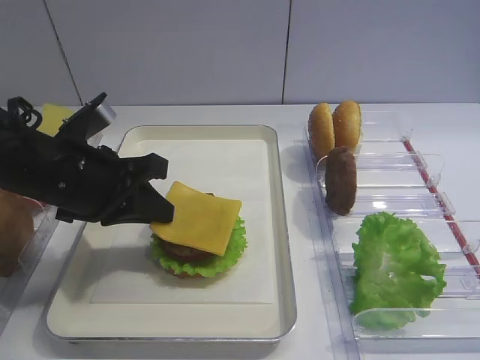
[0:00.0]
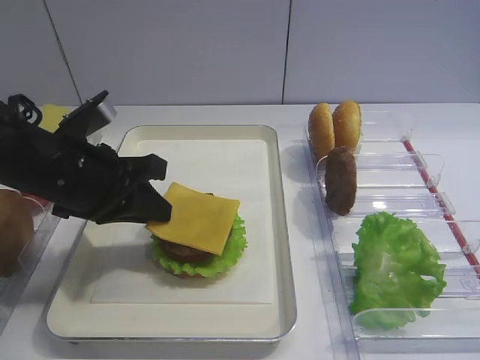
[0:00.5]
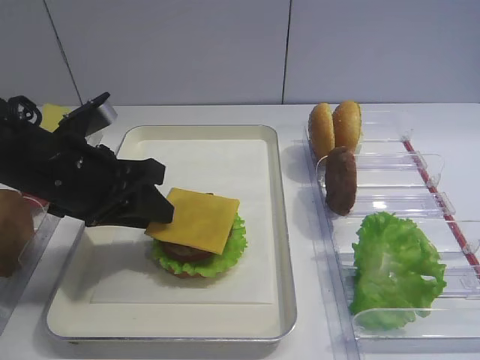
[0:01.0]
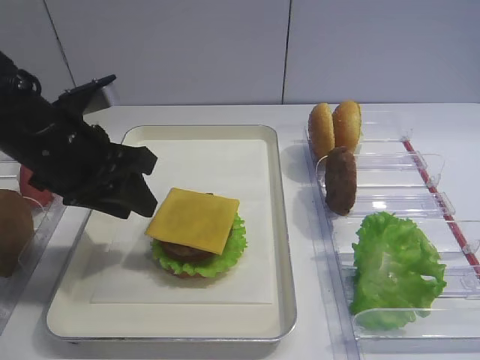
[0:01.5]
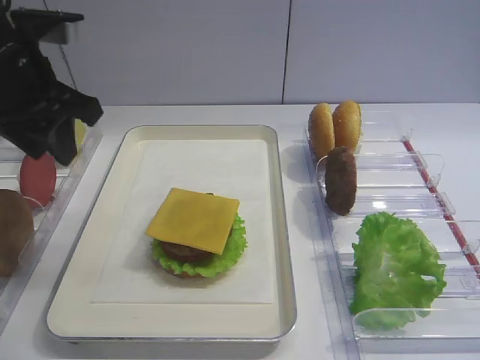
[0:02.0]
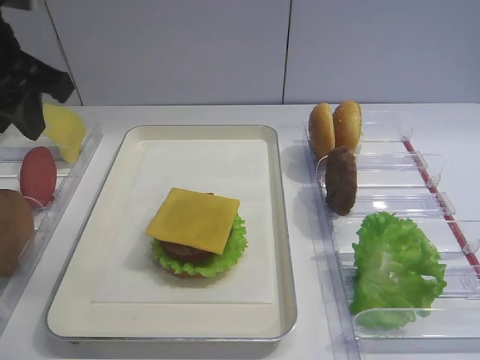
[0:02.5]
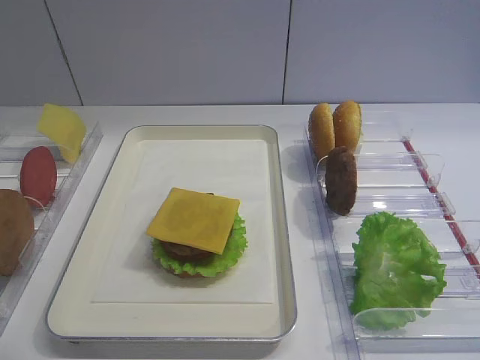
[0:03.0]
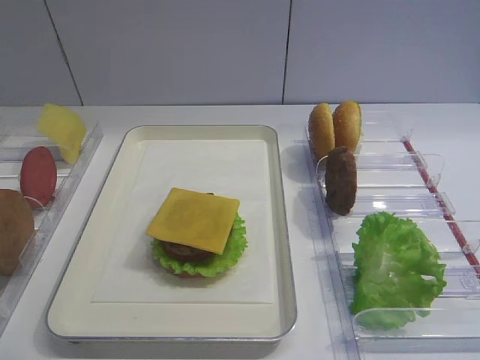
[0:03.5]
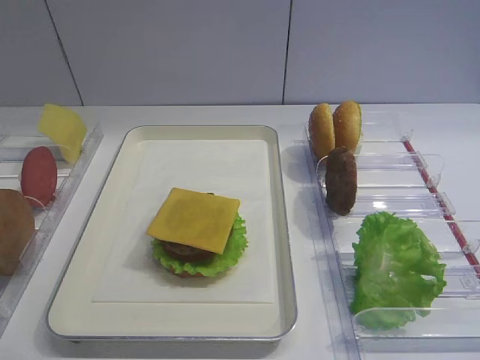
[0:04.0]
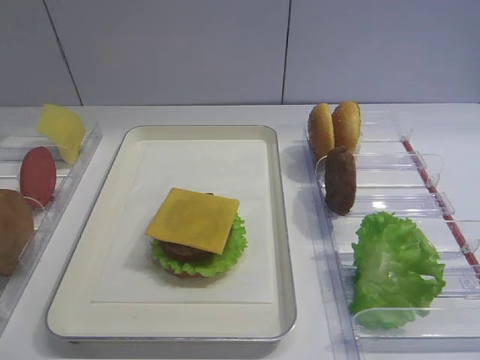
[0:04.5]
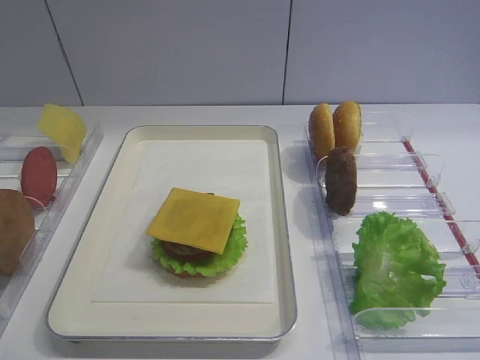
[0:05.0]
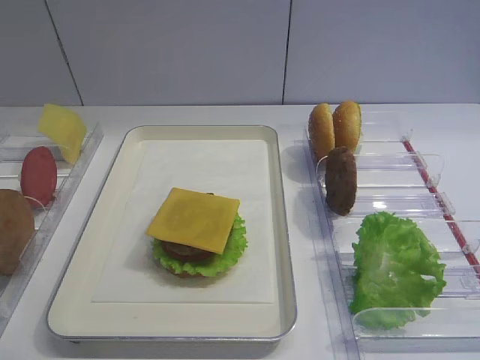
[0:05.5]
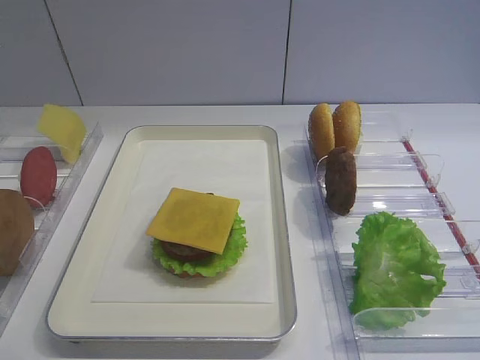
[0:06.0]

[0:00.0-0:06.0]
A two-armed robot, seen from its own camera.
0:00.0 to 0:02.0: The left gripper goes some 10 cm upward, and opens.
0:02.0 to 0:04.0: The left gripper goes about 30 cm backward.
